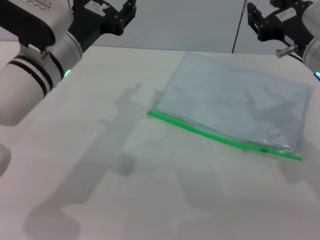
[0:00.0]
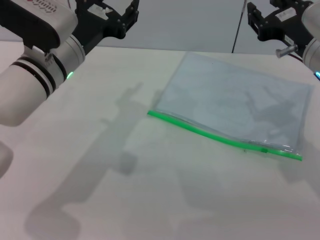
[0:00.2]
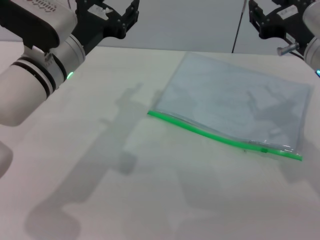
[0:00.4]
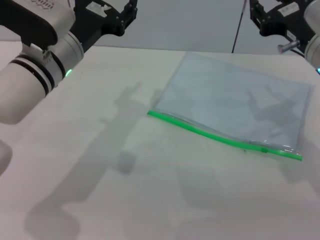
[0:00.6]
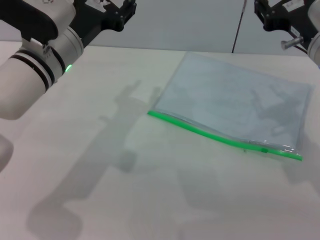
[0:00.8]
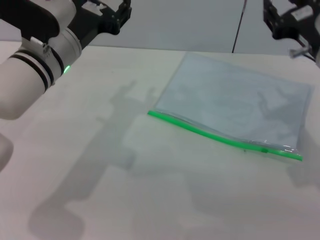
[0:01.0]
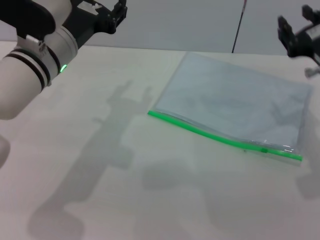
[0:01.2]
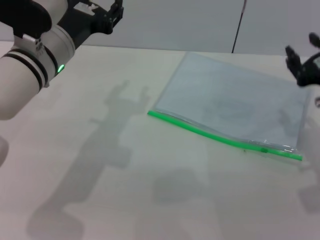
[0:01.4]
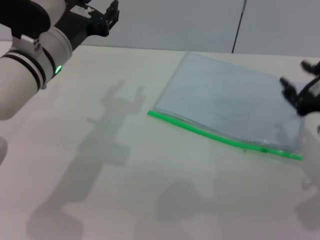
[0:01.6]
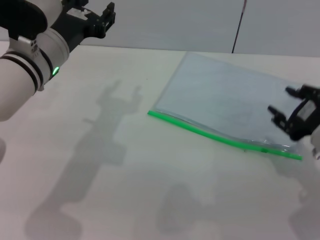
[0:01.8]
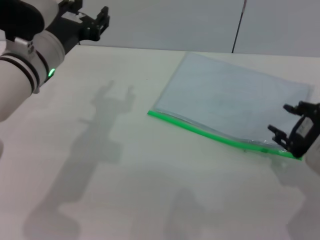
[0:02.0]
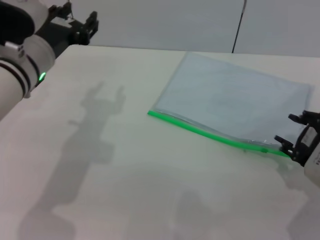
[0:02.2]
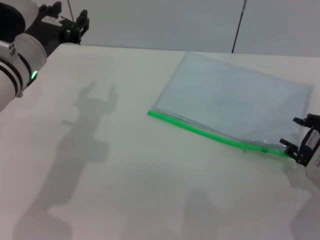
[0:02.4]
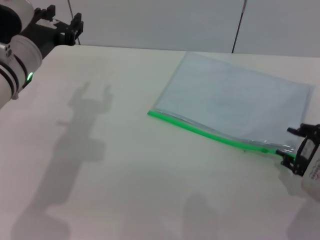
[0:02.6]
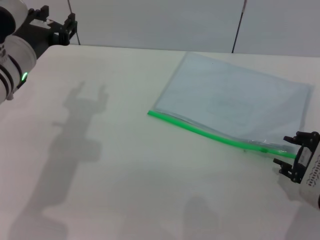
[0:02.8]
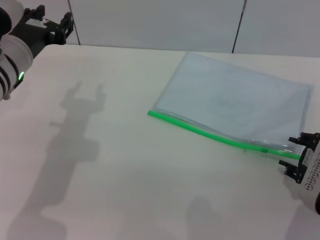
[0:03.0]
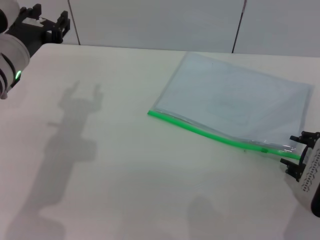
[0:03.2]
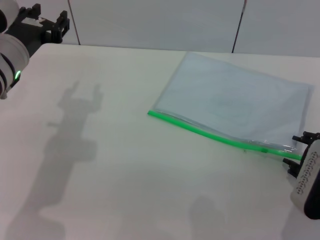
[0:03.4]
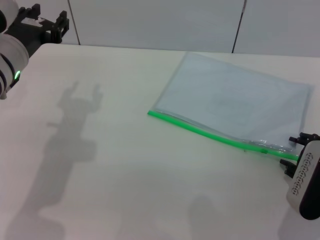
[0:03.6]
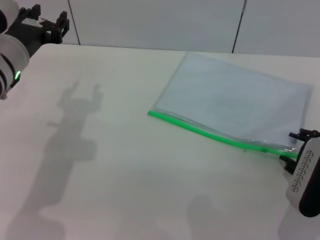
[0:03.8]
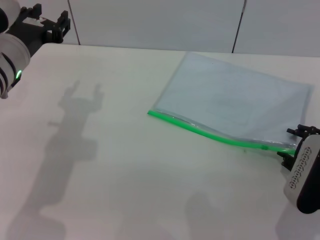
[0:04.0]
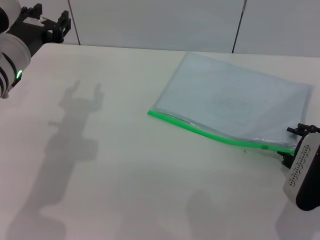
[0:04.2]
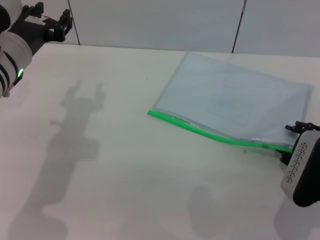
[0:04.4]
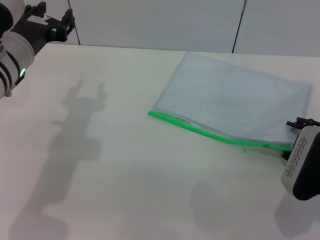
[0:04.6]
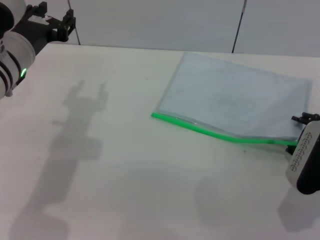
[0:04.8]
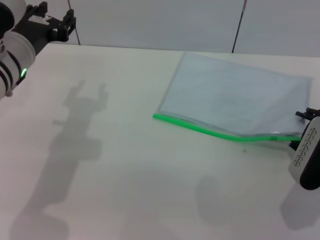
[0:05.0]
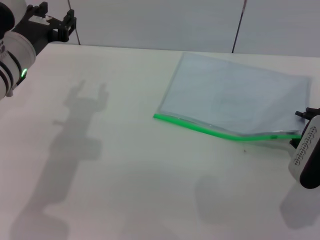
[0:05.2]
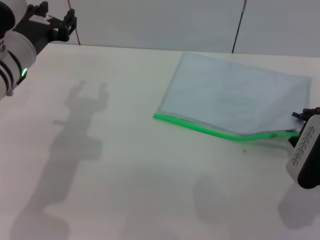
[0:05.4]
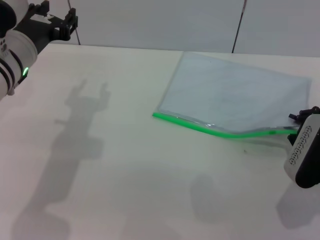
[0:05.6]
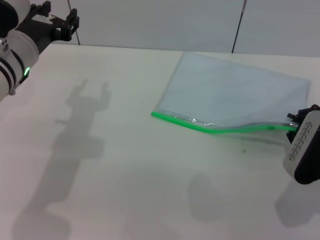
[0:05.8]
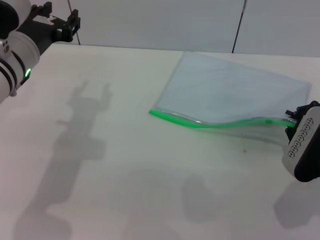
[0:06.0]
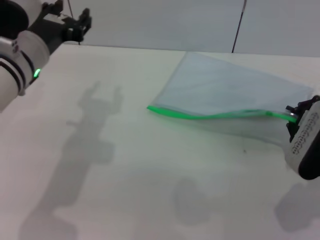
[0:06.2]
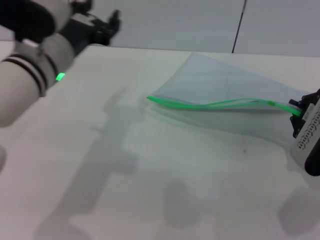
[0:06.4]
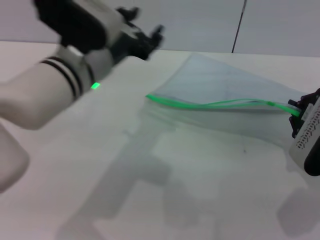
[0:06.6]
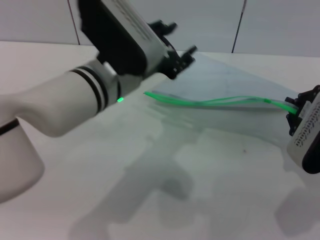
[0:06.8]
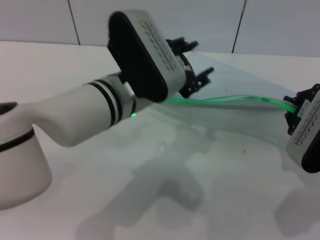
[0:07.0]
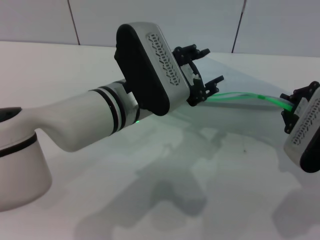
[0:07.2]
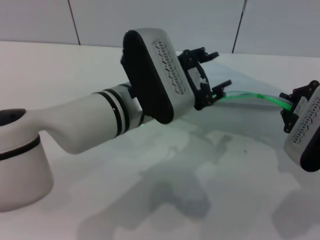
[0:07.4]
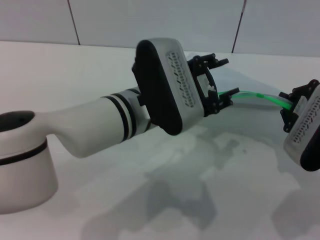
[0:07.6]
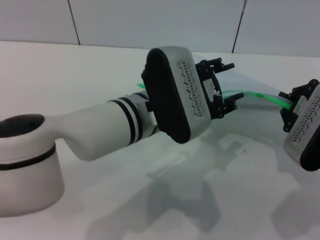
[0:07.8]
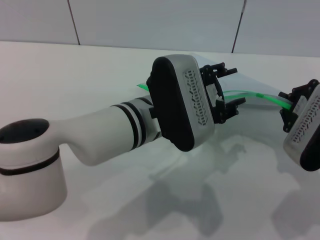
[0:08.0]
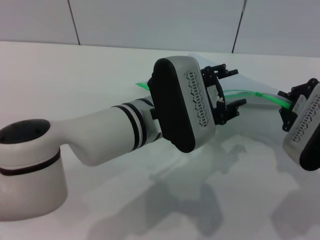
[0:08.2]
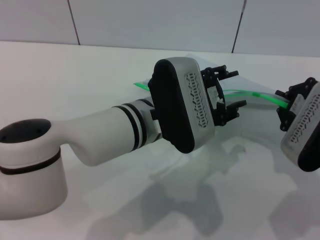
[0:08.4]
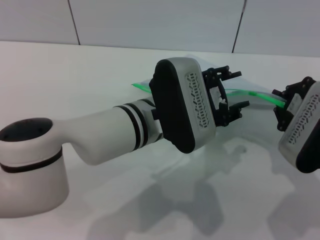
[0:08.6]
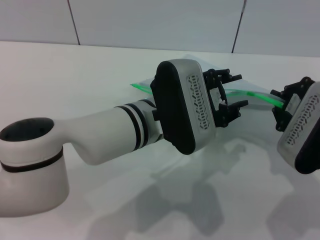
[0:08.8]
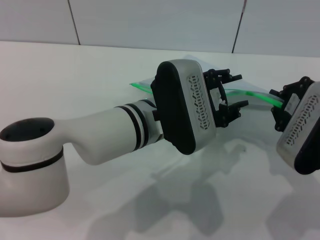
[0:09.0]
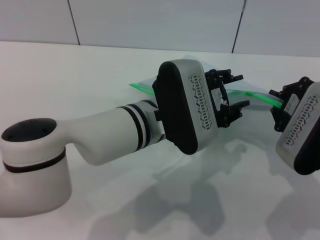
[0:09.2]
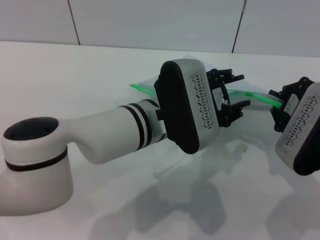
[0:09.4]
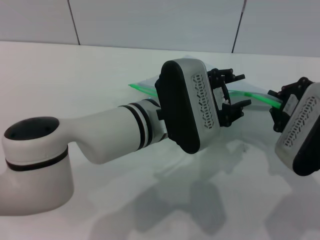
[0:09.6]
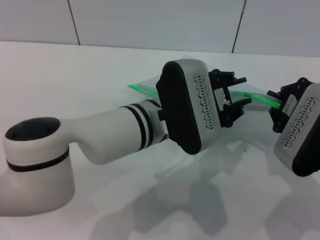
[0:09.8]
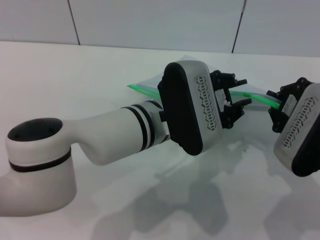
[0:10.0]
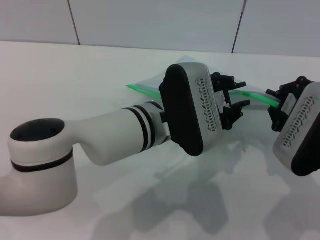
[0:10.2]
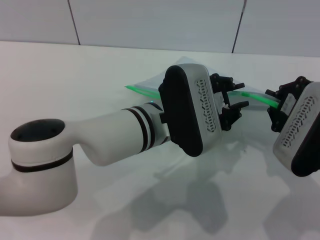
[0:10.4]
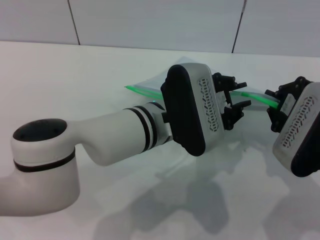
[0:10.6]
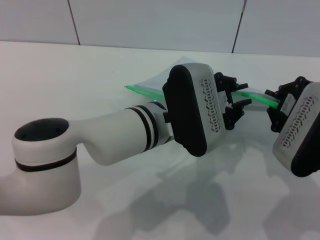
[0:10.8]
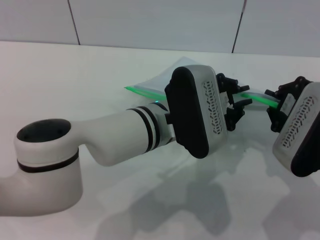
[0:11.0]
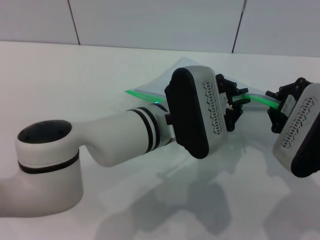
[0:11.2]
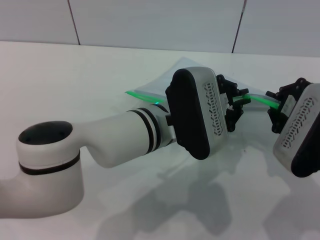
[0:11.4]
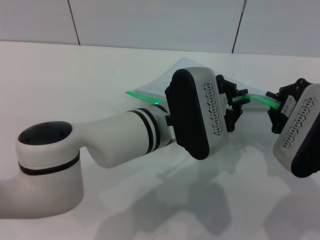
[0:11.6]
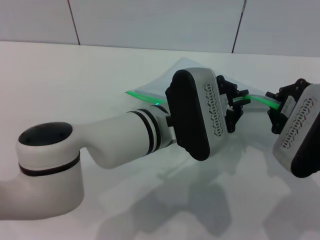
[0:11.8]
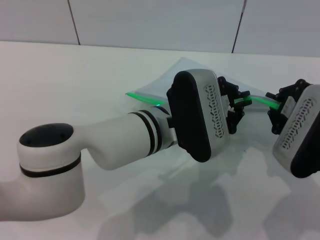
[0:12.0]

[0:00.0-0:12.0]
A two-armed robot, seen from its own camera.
Step, 0:00.0 to 0:07.4: Pick up the transparent plastic bag with the right gripper.
0:00.0 to 0:01.6: The right gripper travels backward and to the right by approximately 10 cm.
0:01.6 to 0:03.0: The right gripper shifts by about 5 cm.
0:03.0 to 0:04.4: The grippers make only small movements.
0:04.4 to 0:06.0: The right gripper closes.
0:06.0 to 0:07.6: The right gripper heads upward, covering roughly 5 cm, while the left gripper moves to the right, roughly 15 cm.
0:09.0 to 0:10.4: The two grippers keep their place.
0:10.4 to 0:12.0: The left gripper closes.

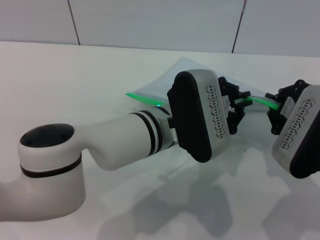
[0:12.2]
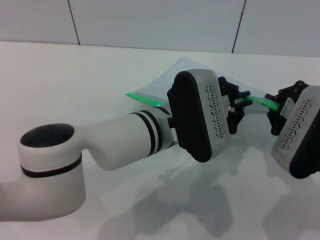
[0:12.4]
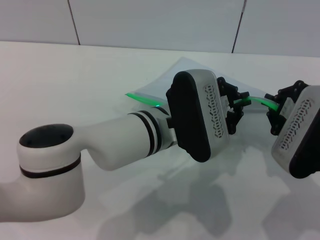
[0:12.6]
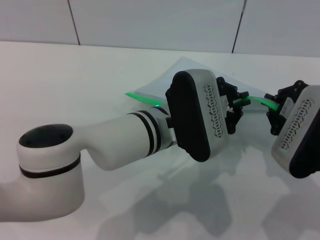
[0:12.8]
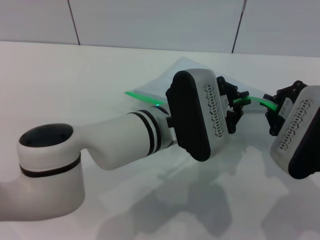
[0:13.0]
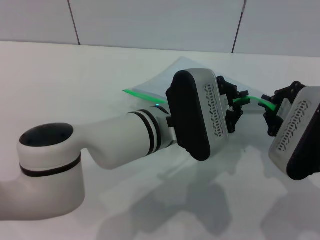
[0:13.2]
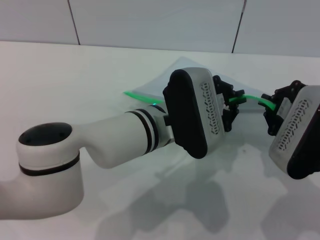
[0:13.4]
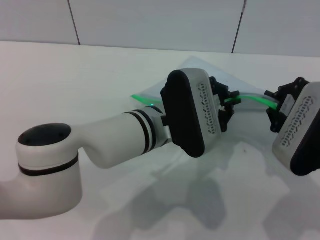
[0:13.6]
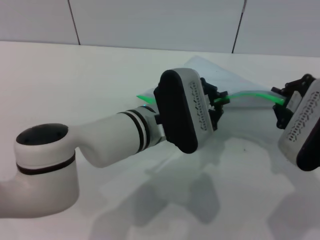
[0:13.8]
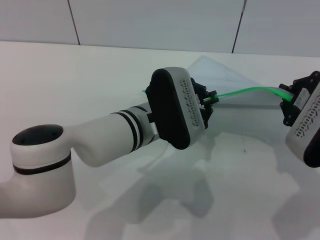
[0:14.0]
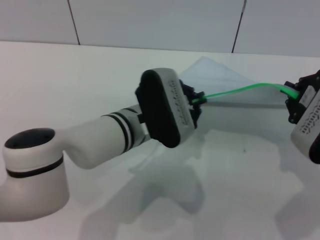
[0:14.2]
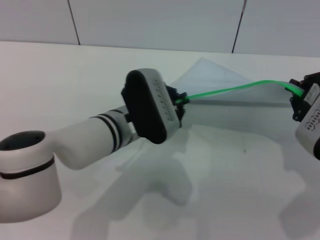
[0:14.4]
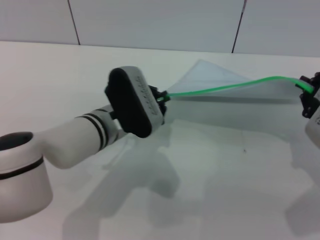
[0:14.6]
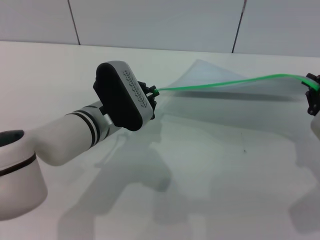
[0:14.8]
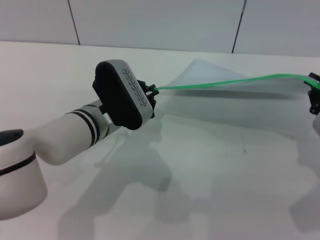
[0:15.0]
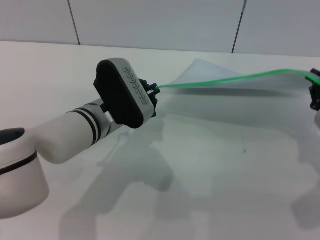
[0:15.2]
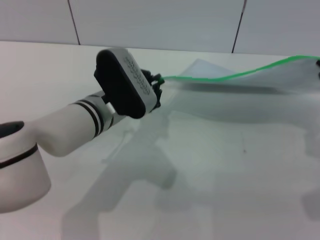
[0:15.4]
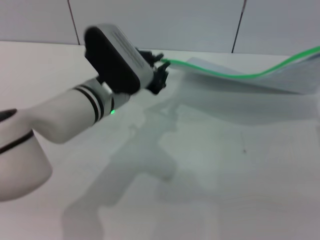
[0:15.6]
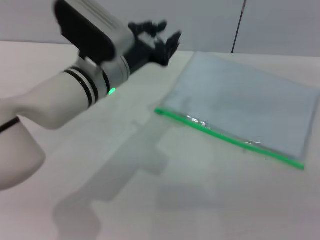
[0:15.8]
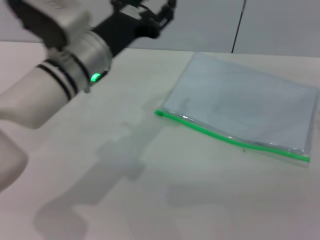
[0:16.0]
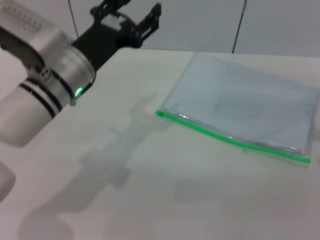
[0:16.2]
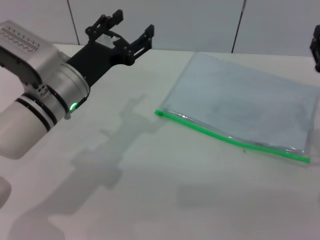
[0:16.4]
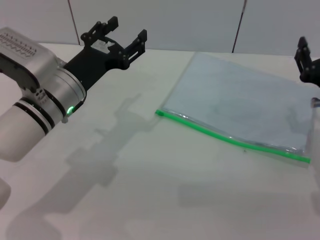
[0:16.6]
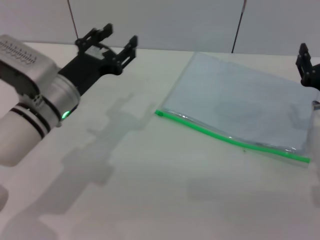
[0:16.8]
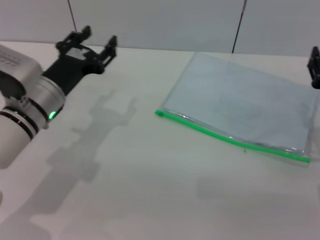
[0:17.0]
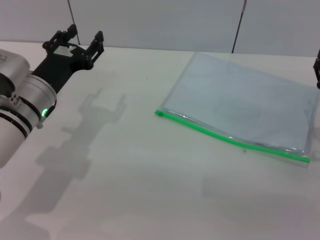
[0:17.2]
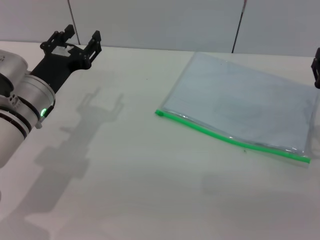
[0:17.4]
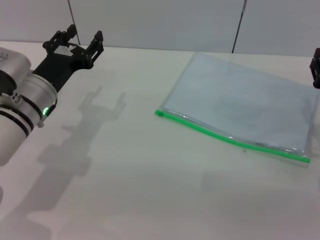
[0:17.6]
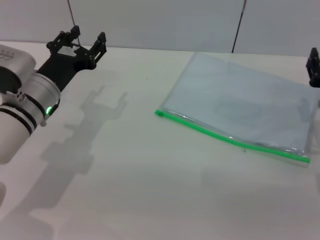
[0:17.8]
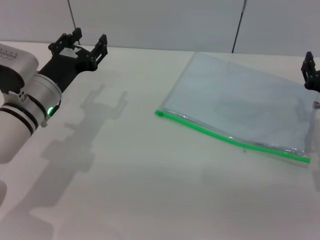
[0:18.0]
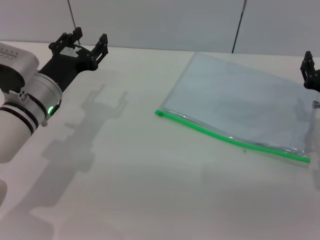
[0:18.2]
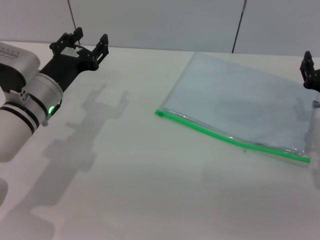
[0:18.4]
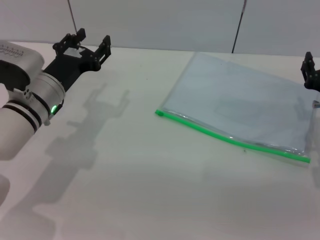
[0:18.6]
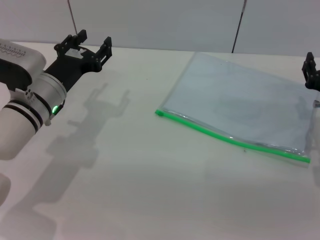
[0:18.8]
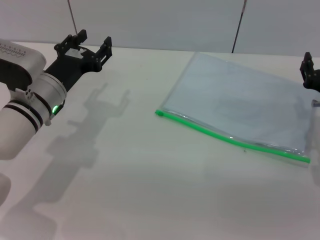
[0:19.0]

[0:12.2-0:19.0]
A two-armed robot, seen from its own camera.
Step, 0:12.2 to 0:15.4: Pulling up the zipper on the transparent plastic bag with the left gripper to close it.
Step, 0:15.6 to 0:16.6: Place the transparent plastic bag.
0:12.2 to 0:13.6: Both grippers stay put.
0:13.6 to 0:15.0: The left gripper is displaced to the left by some 10 cm.
0:15.0 to 0:16.2: The right gripper opens; the left gripper heads upward, covering some 5 cm, and opens.
0:16.2 to 0:17.6: The left gripper moves to the left and downward, some 10 cm. Meanwhile the right gripper goes approximately 5 cm downward.
0:17.6 to 0:19.0: The grippers stay close to where they were, moving slightly.
